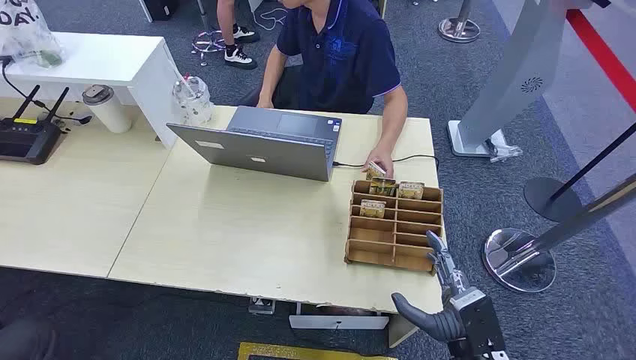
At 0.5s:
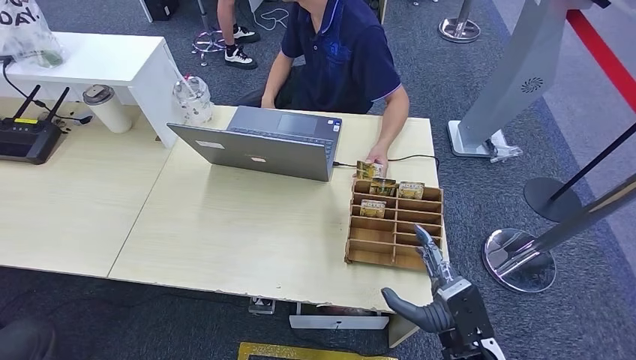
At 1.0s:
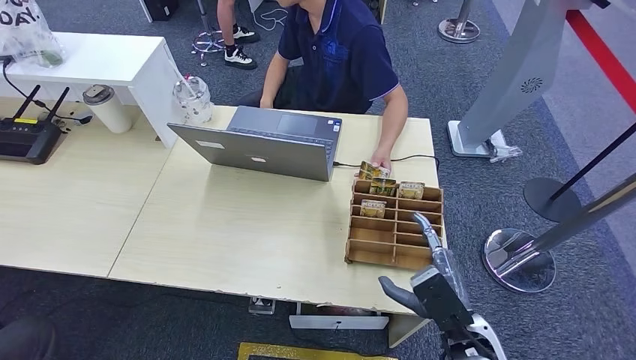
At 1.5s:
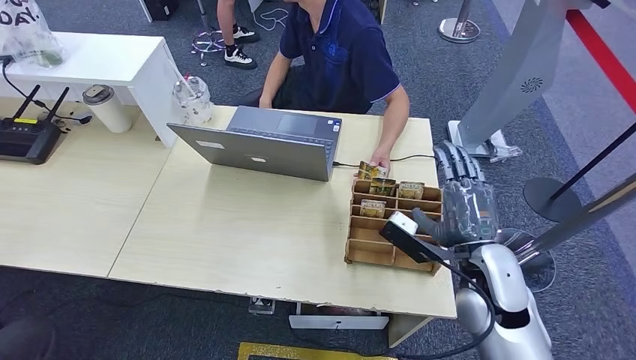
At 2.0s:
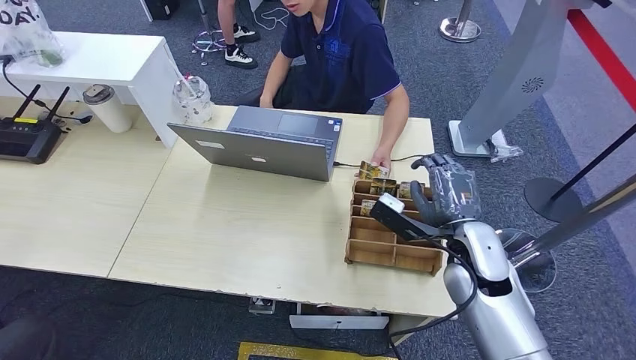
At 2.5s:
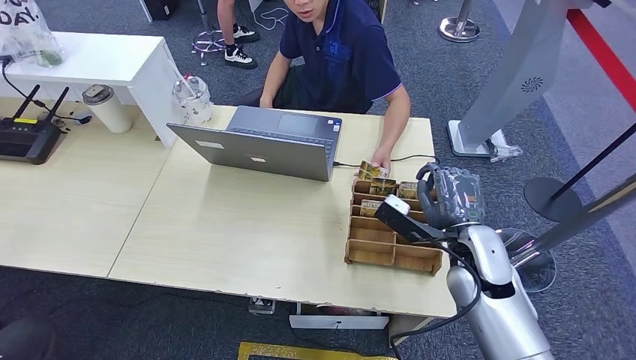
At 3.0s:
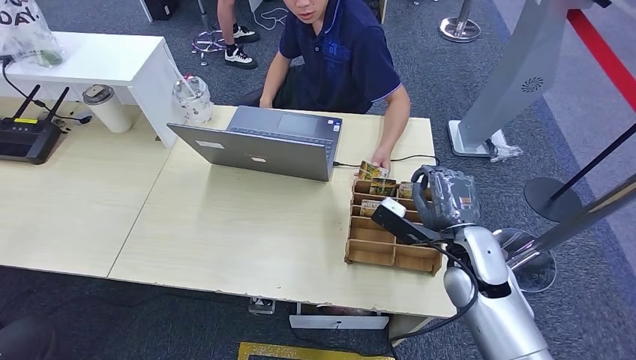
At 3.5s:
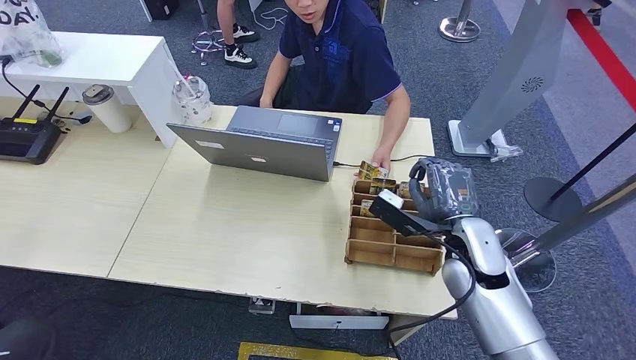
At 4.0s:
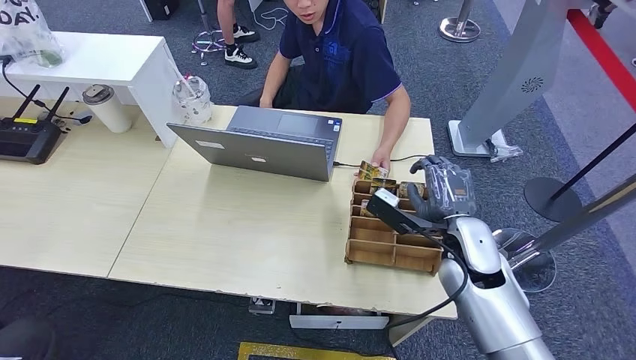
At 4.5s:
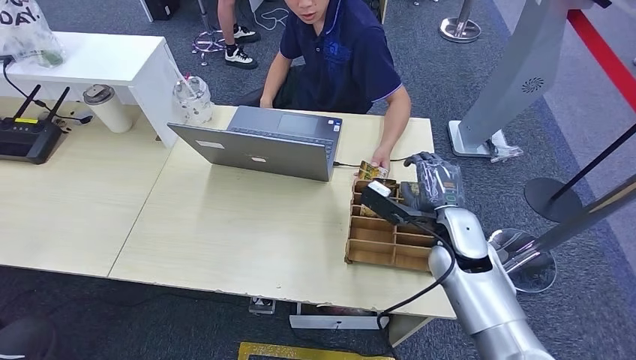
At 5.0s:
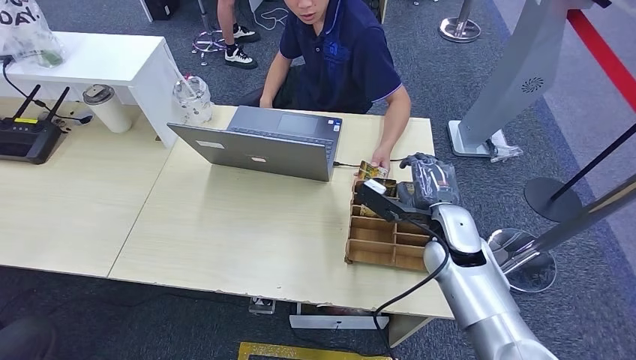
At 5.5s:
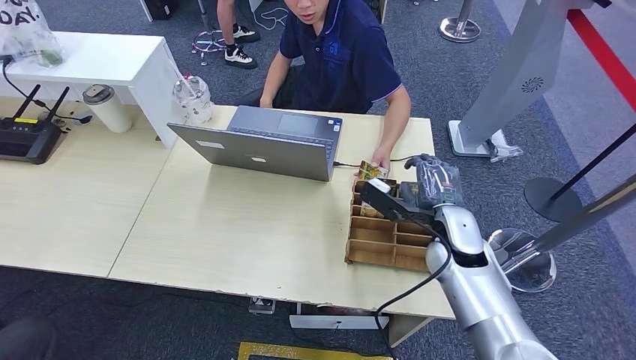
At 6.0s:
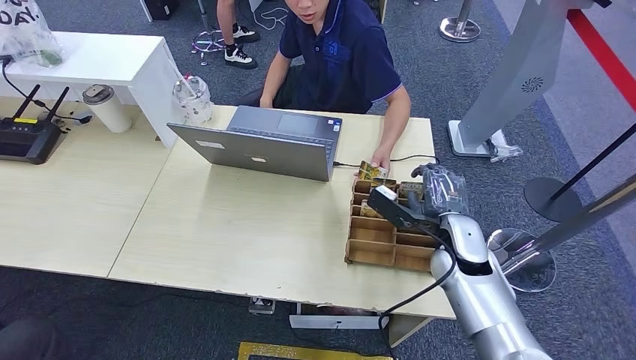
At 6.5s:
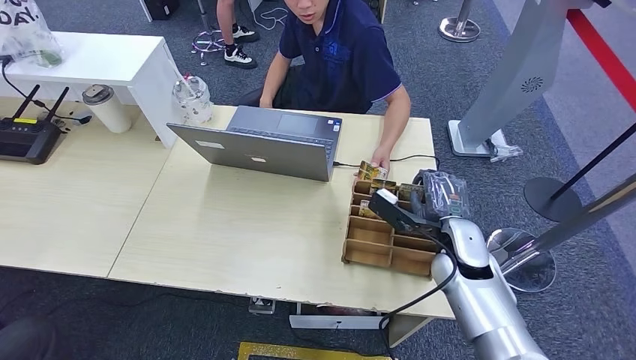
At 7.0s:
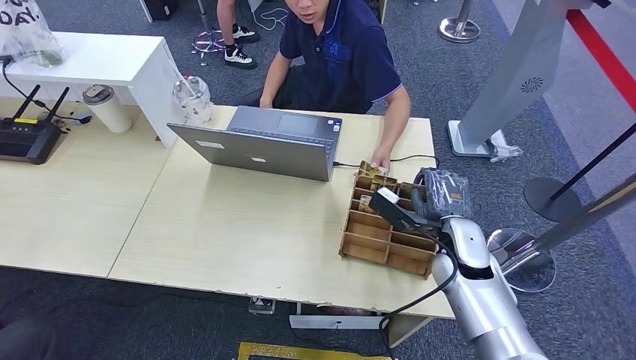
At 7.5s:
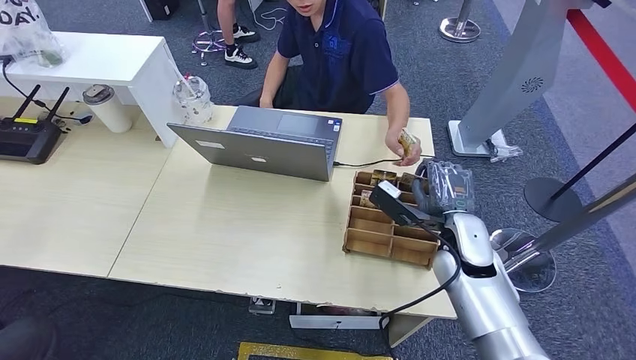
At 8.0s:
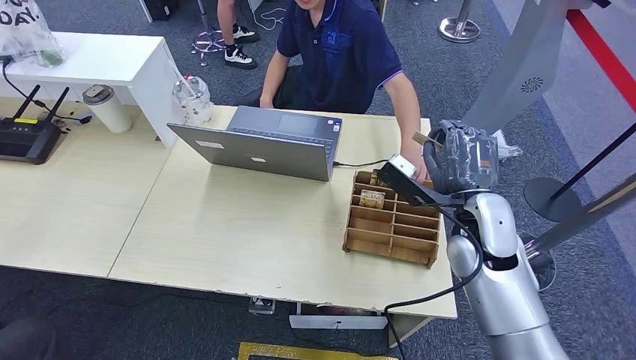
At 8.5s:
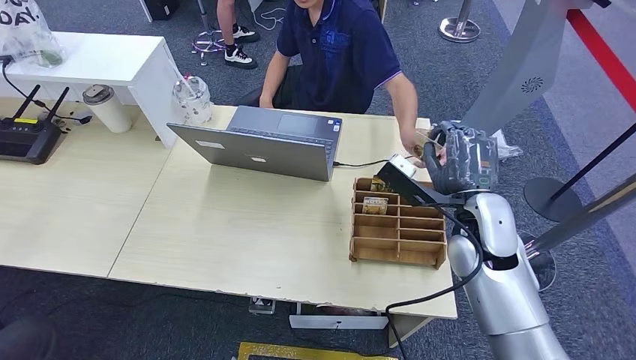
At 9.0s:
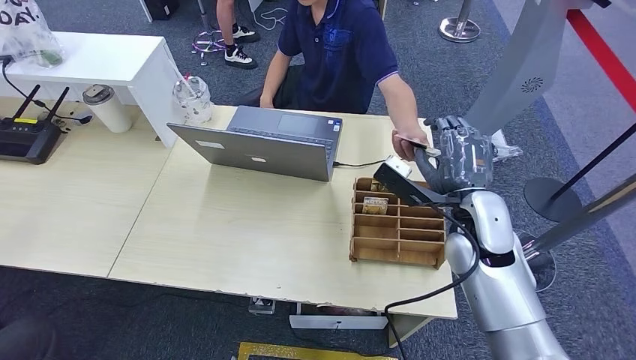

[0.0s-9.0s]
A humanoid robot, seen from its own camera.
Step, 0.0s to 7.0s: Pick up the key card from the card box.
Step, 7.5s to 9.0s: Hand the key card to the target.
2.0s to 7.0s: There are only small adjustments of the hands.
7.0s to 9.0s: The right hand heads upward, covering approximately 10 cm.

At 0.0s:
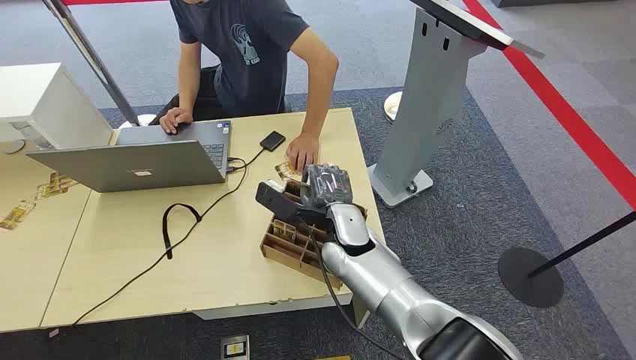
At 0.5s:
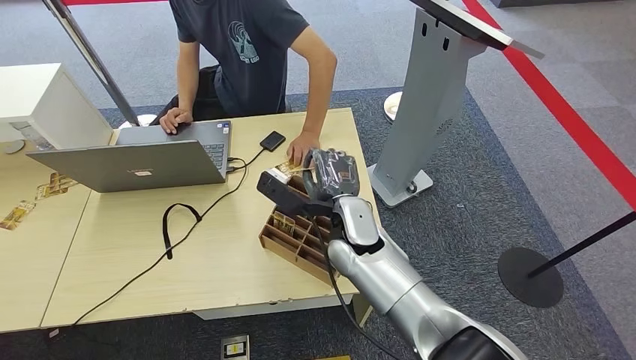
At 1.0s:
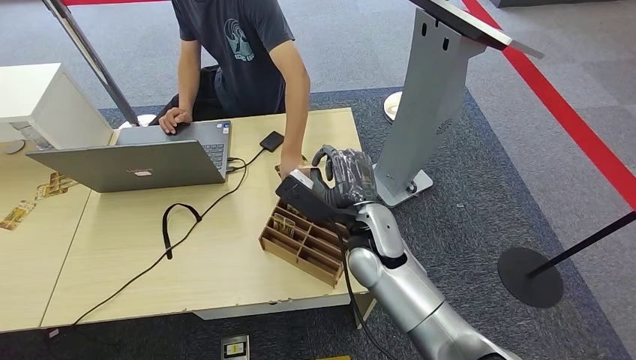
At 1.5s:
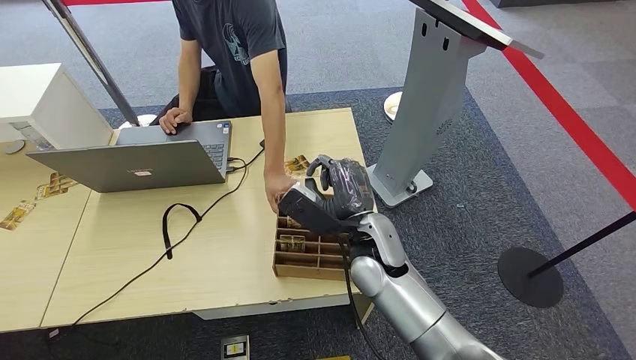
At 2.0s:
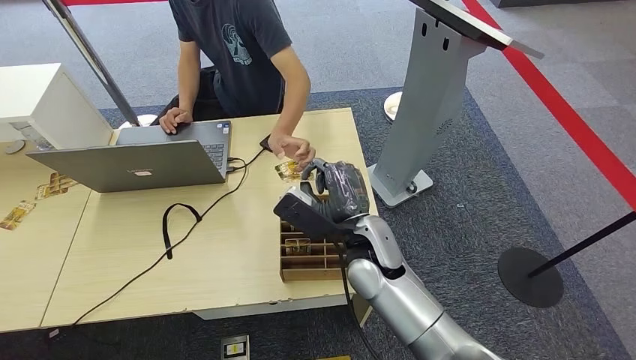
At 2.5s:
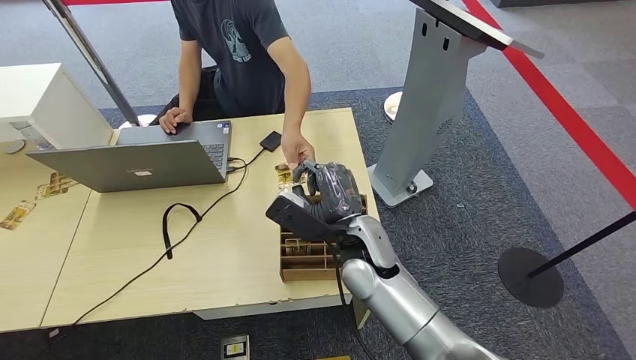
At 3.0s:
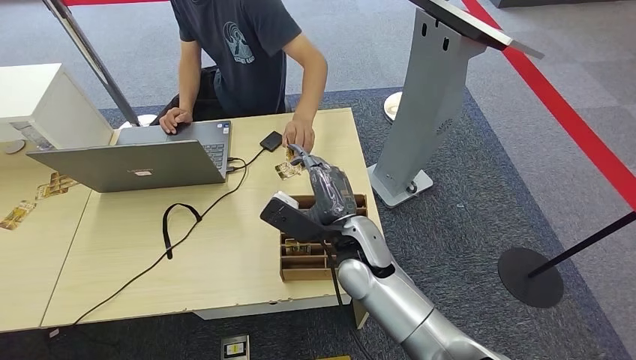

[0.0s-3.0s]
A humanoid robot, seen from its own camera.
Step, 0.0s to 1.0s: Pick up the key card from the card box.
Step, 1.5s to 3.0s: Hand the key card to the target.
1.5s to 3.0s: The hands make only small movements.
